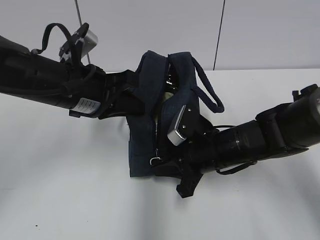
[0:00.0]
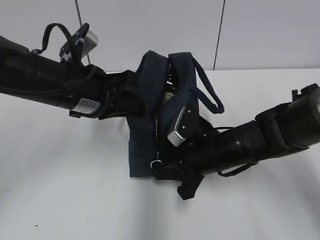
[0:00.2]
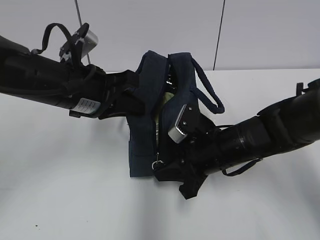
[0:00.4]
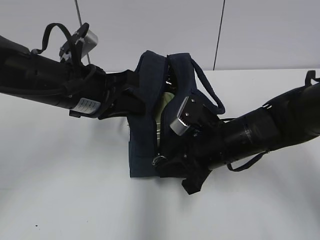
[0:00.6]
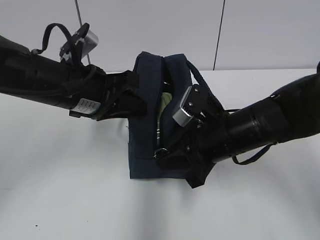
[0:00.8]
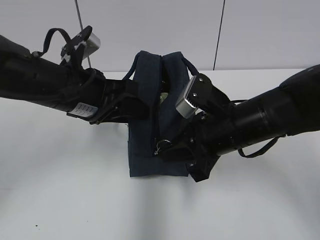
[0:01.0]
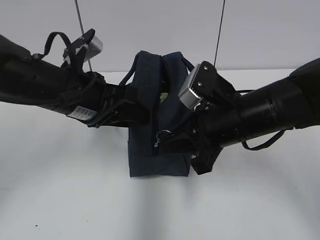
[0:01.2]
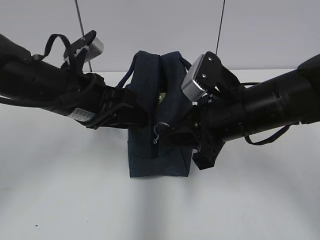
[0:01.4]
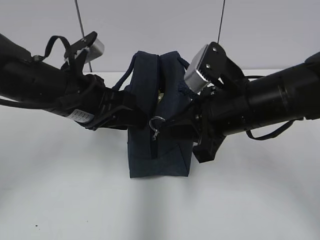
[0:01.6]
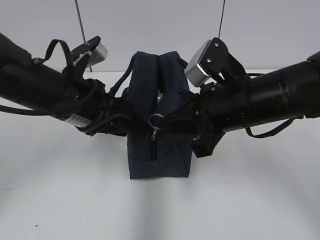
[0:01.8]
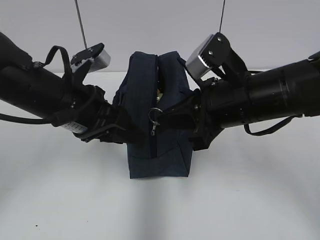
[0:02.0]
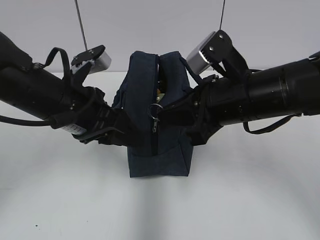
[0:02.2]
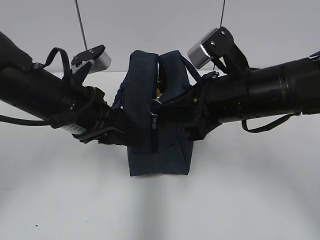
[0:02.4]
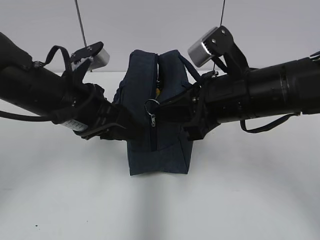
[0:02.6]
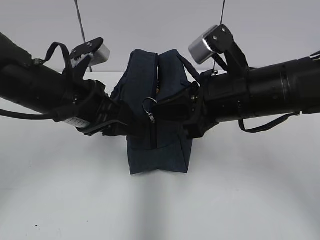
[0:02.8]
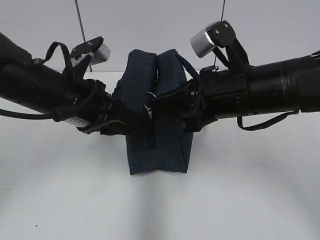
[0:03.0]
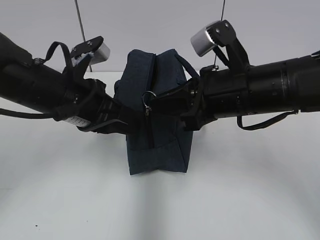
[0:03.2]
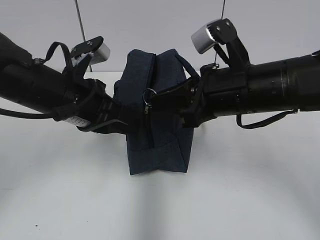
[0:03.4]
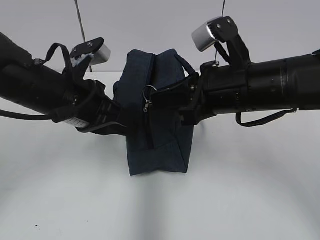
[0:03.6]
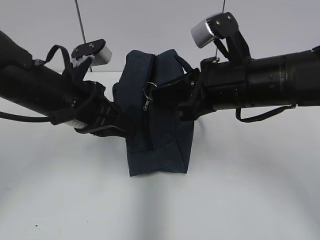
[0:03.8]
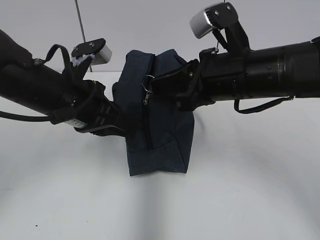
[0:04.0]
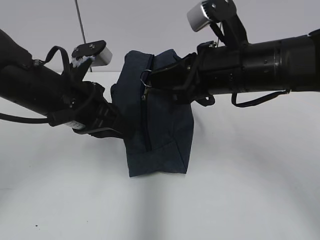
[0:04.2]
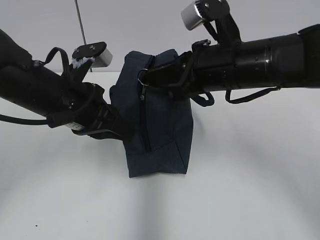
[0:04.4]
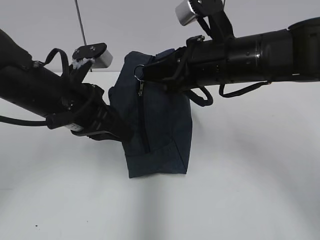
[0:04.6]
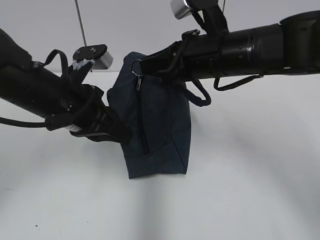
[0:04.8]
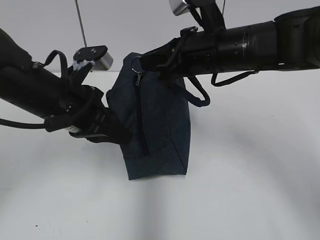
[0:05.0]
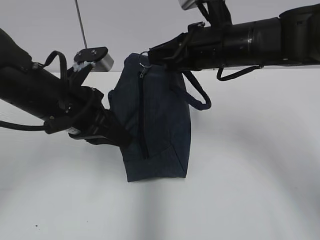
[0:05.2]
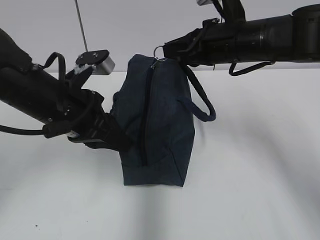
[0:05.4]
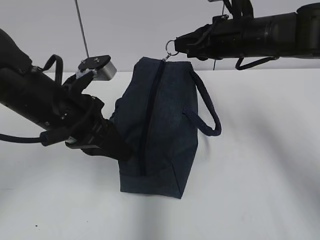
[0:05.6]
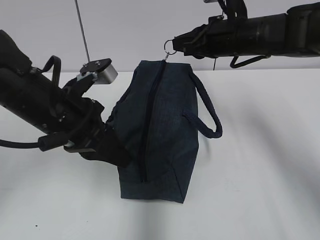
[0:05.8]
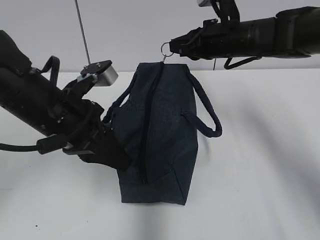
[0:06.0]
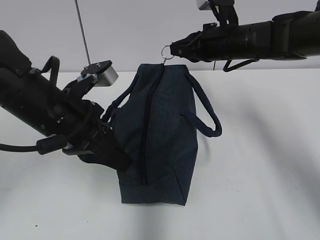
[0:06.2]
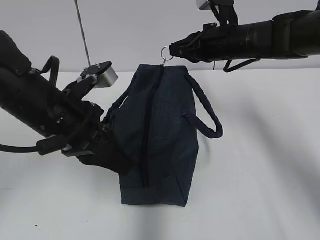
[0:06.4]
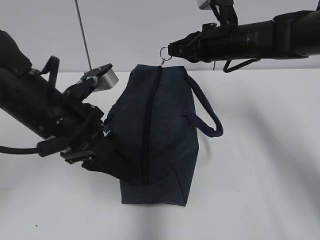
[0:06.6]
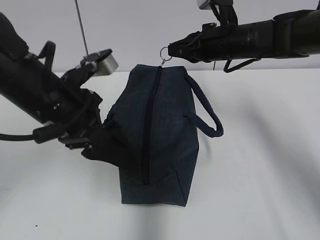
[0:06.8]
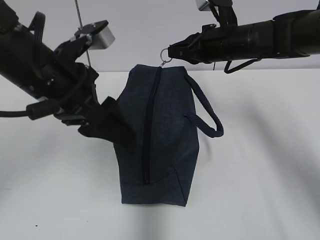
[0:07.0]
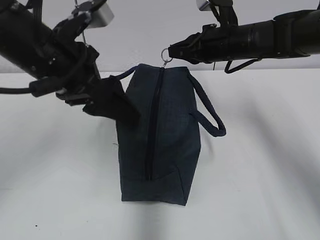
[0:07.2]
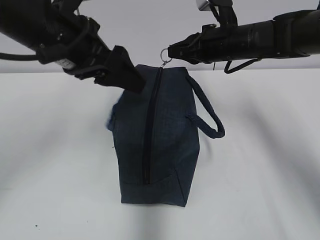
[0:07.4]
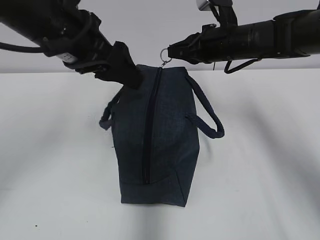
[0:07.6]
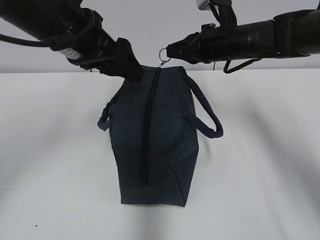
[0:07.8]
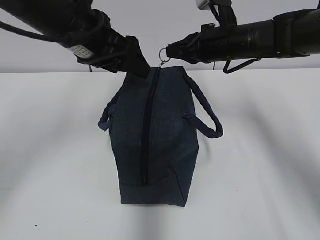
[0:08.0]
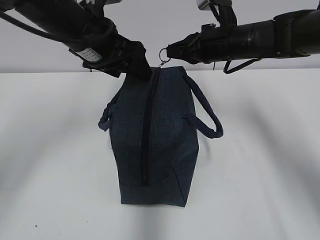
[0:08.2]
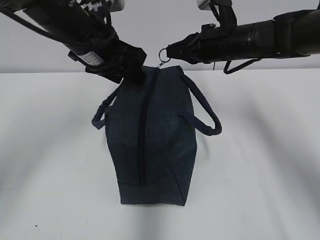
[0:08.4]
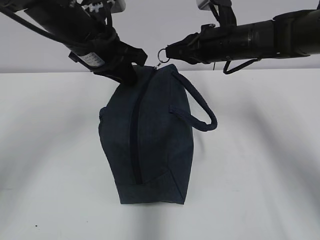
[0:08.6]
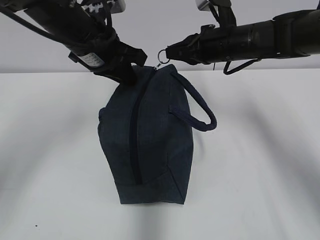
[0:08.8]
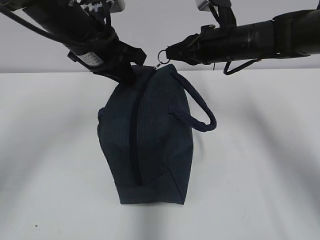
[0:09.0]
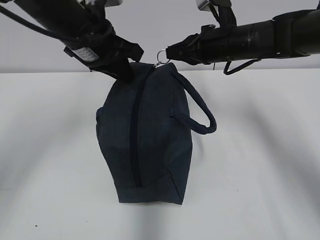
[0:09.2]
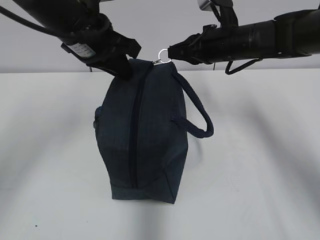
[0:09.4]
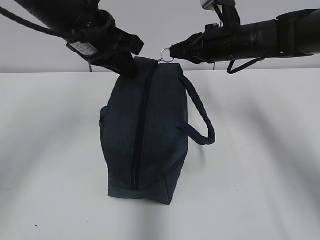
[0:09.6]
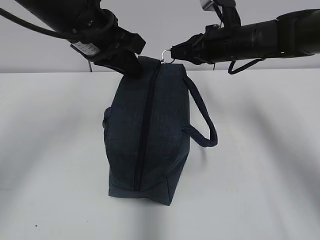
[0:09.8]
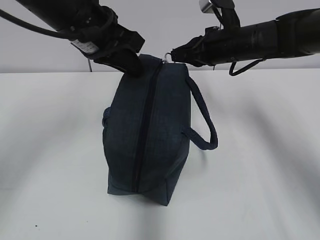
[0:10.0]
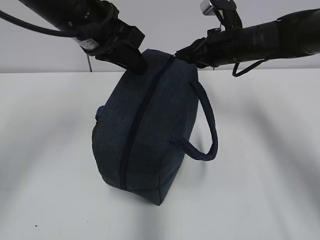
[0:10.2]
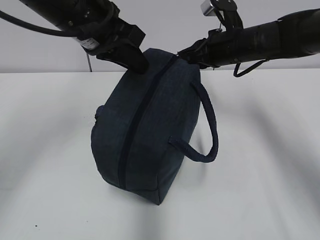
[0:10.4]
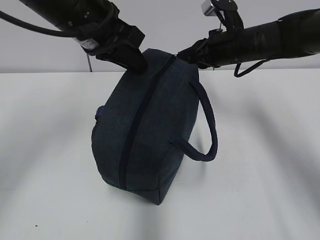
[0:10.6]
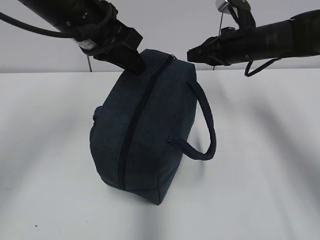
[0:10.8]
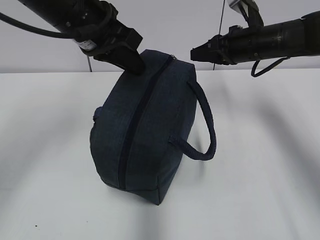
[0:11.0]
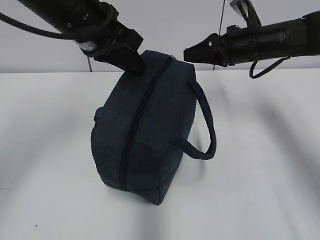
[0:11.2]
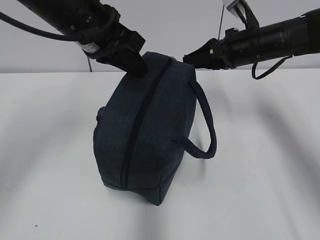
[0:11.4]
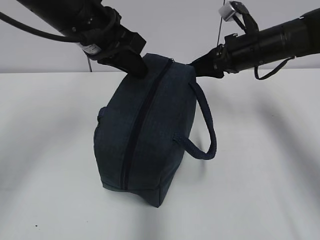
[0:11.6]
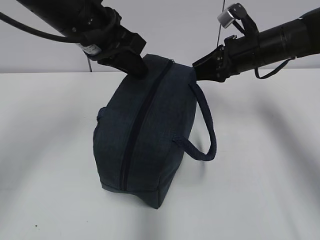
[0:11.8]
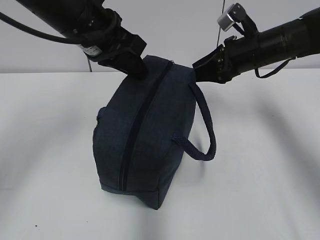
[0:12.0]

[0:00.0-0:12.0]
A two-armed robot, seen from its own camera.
0:00.0 to 0:01.6: The right gripper goes some 10 cm upward. Meanwhile the left gripper opens up.
0:01.6 to 0:03.0: The grippers make only small movements.
0:03.0 to 0:04.4: The left gripper closes its fingers.
0:04.4 to 0:06.0: The right gripper shifts approximately 10 cm forward.
0:06.0 to 0:07.6: The left gripper travels upward and forward by approximately 10 cm, and opens.
0:07.6 to 0:09.0: The left gripper is displaced forward by some 5 cm, and closes its fingers.
0:09.0 to 0:10.4: There are only small adjustments of the grippers.
0:10.4 to 0:12.0: The right gripper opens.

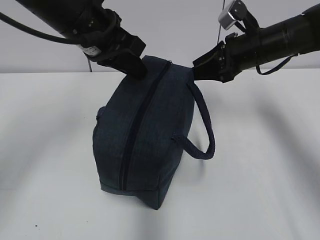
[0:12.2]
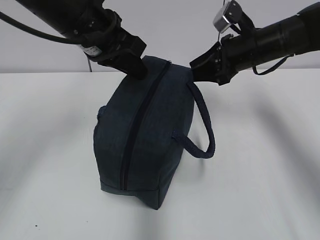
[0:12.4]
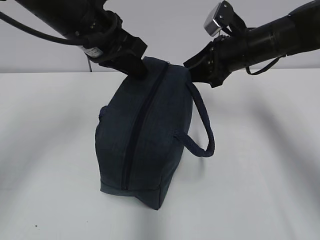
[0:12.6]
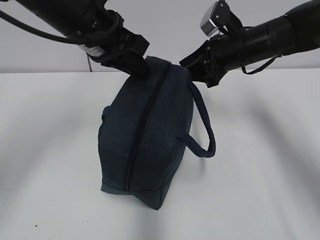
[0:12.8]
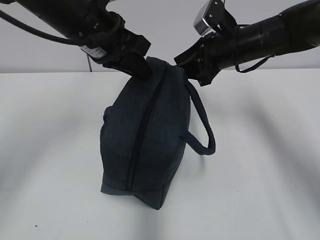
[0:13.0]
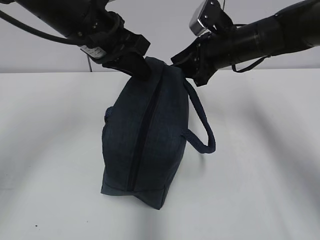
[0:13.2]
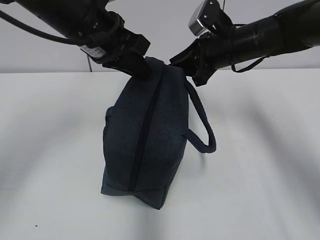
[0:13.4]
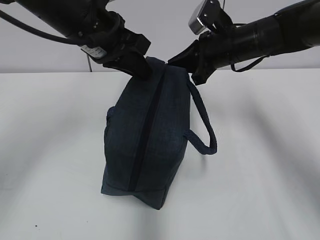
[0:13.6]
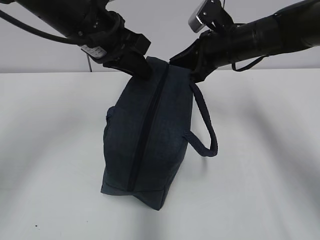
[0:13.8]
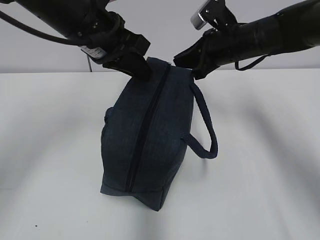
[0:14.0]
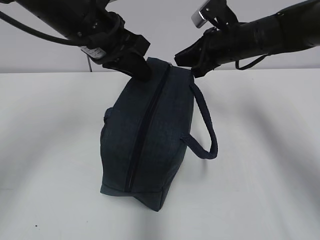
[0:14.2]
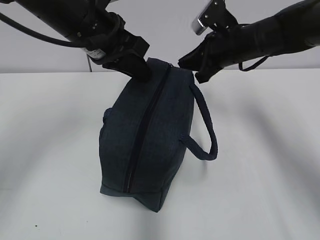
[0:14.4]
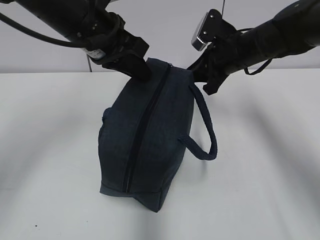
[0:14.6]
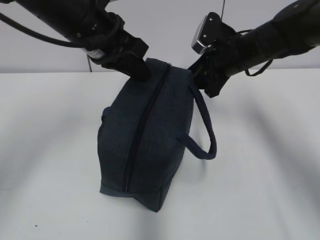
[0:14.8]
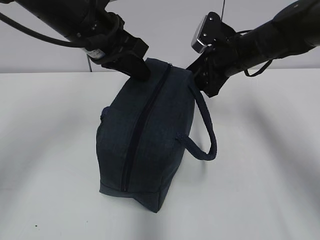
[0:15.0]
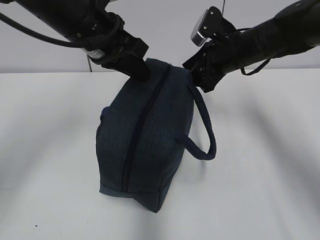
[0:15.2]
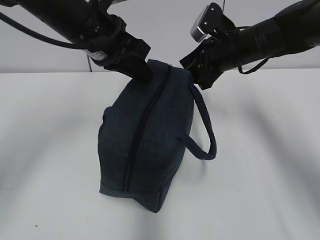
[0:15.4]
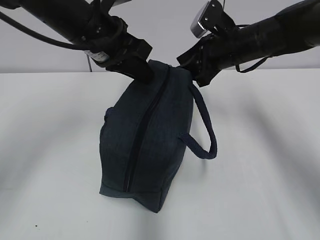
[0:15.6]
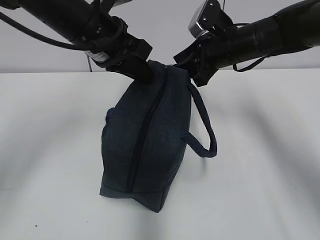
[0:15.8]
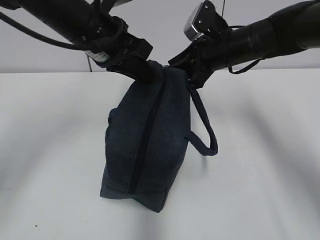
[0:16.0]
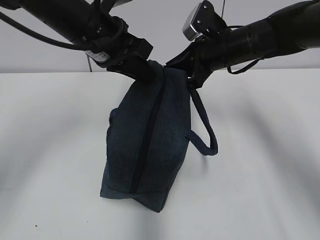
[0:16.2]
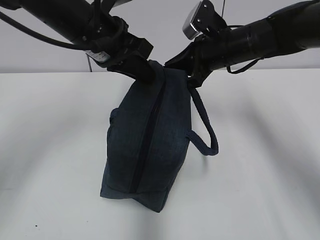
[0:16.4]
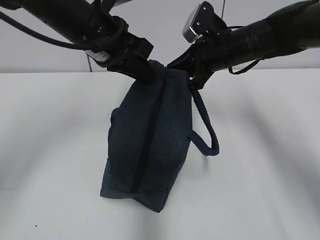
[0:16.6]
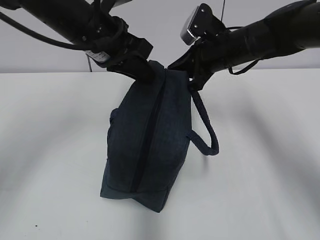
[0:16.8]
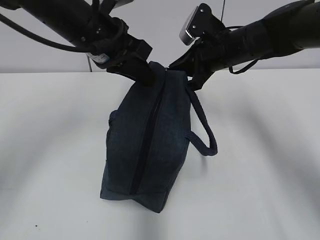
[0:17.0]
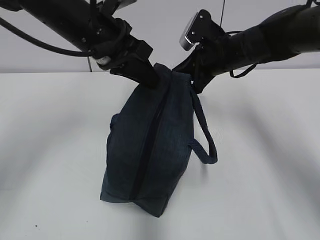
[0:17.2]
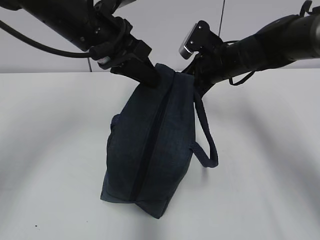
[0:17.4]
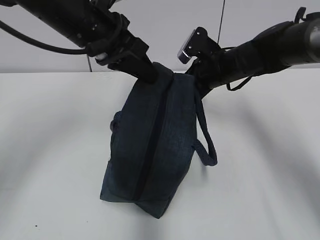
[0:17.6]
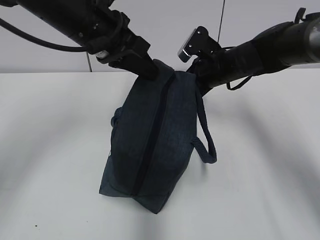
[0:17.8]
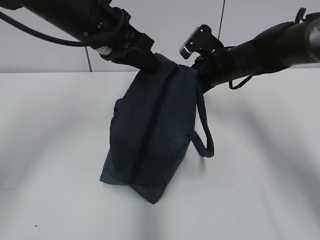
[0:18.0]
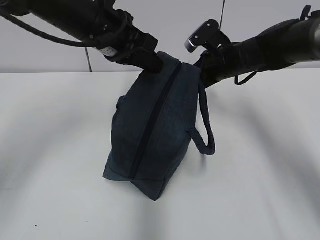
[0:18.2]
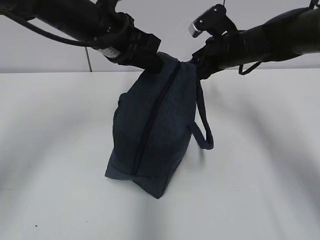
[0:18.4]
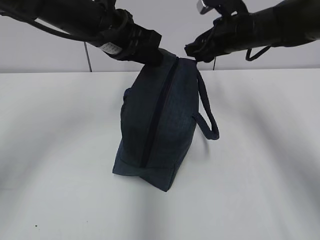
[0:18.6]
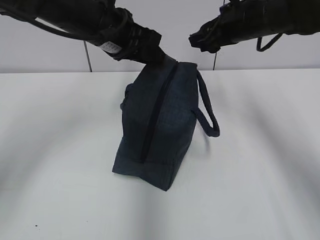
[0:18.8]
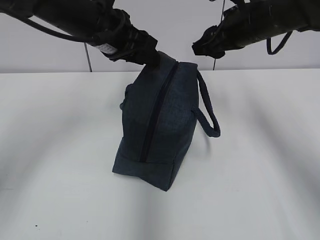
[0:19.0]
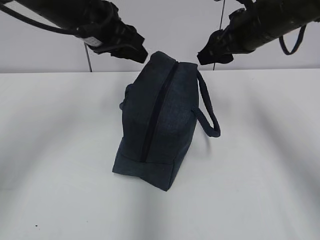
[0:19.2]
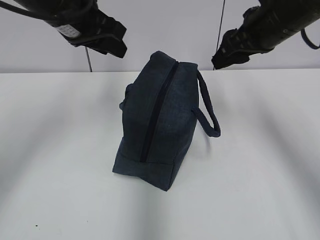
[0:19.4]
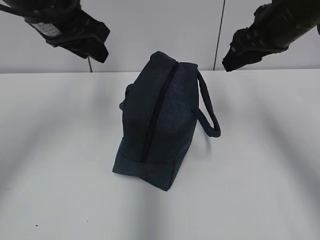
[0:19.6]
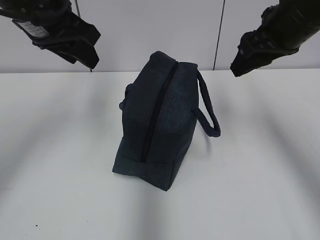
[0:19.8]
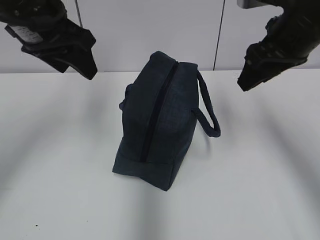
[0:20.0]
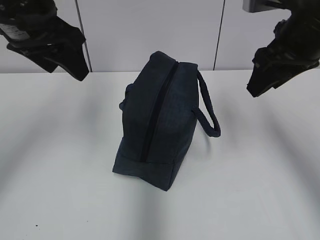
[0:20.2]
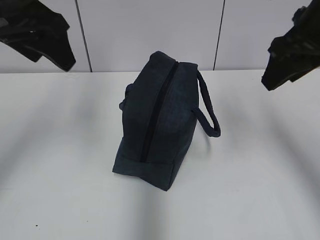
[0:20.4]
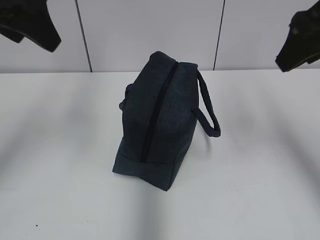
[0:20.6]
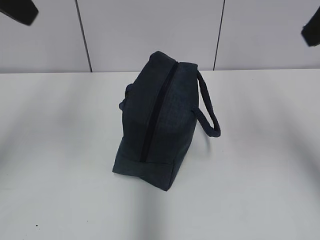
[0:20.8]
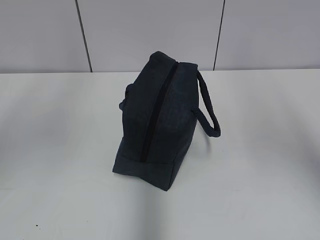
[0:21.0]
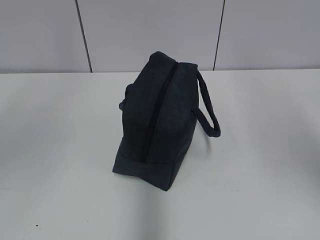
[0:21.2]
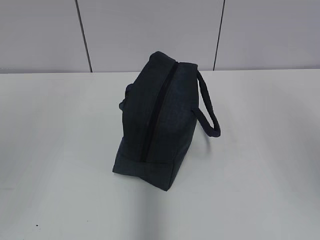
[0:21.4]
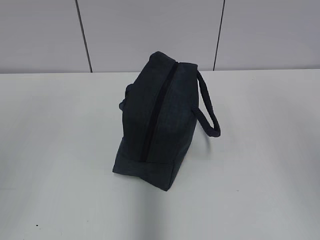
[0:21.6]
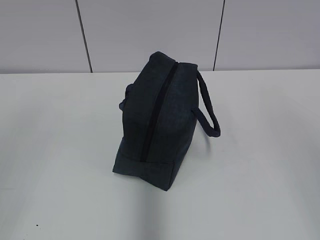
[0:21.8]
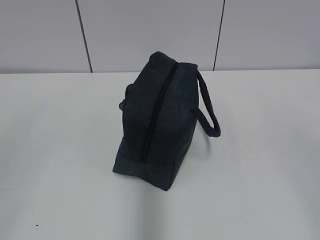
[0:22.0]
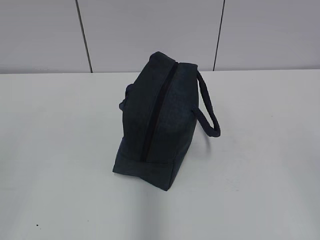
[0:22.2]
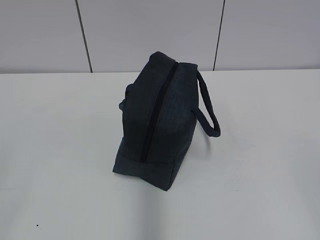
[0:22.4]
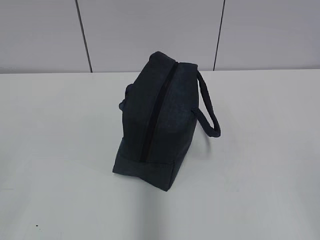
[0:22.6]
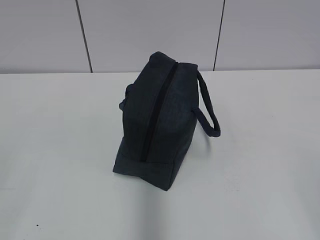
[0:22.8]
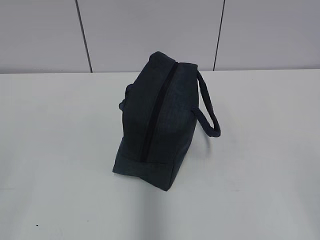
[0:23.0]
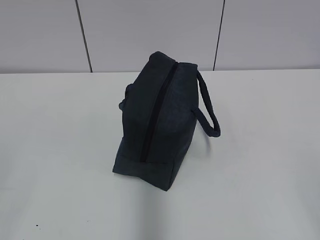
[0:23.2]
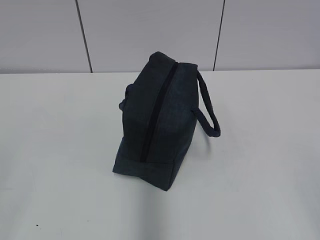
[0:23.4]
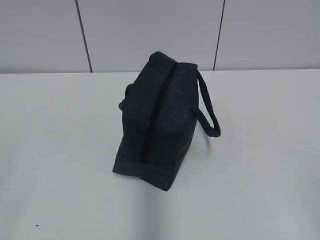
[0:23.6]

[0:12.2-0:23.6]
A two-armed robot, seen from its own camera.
Step, 0:12.2 to 0:18.0: Pull the zipper with your right hand.
Step, 0:18.4 to 0:18.6: Grab the lunch bag with your left hand.
0:12.2 to 0:13.6: The right gripper closes its fingers.
0:13.6 to 0:15.0: The right gripper opens its fingers.
0:15.0 to 0:16.4: The right gripper closes.
0:16.4 to 0:17.8: The right gripper shifts by some 5 cm.
0:17.8 to 0:19.4: The right gripper goes roughly 15 cm upward and backward, and opens its fingers, while the left gripper changes place by some 5 cm, and opens up.
0:19.4 to 0:20.8: The left gripper shifts approximately 20 cm backward, upward and to the left; the right gripper moves backward and upward, some 20 cm.
0:20.8 to 0:22.2: The left gripper shifts some 30 cm backward and downward. Meanwhile the right gripper heads backward, covering some 25 cm.
